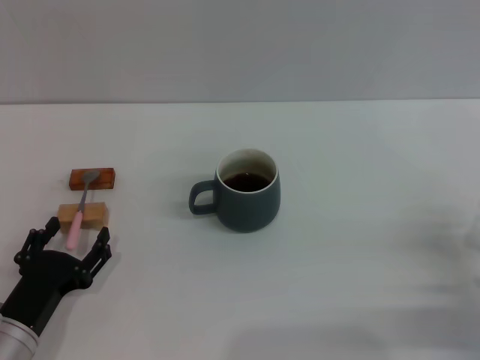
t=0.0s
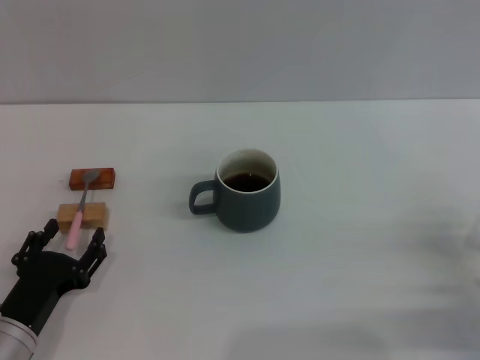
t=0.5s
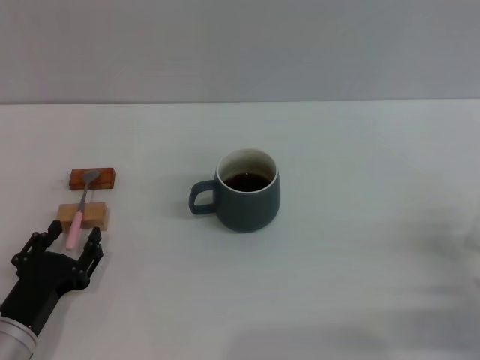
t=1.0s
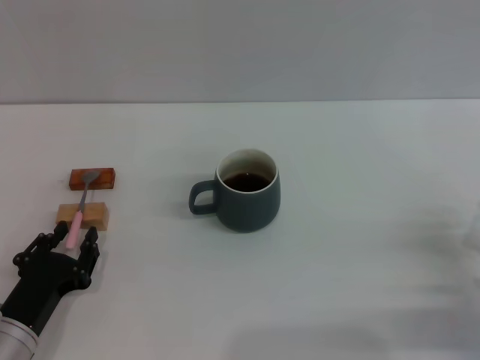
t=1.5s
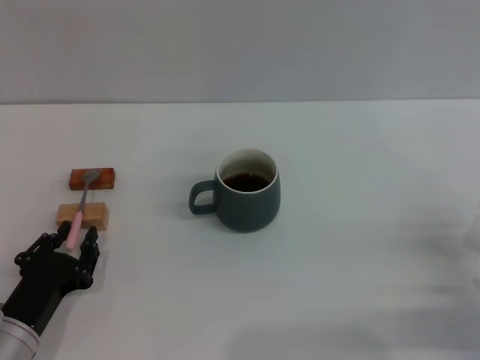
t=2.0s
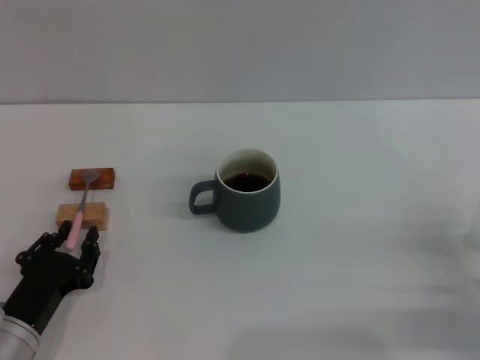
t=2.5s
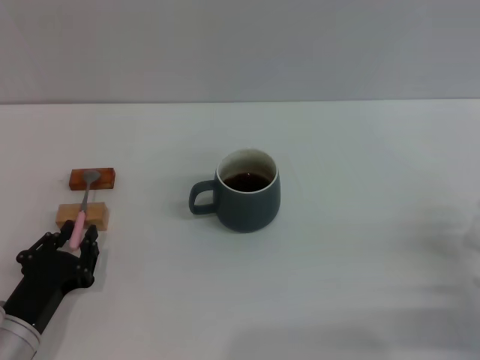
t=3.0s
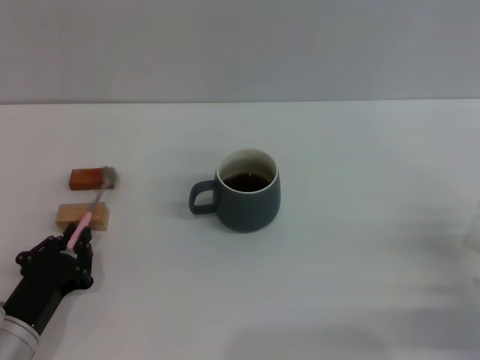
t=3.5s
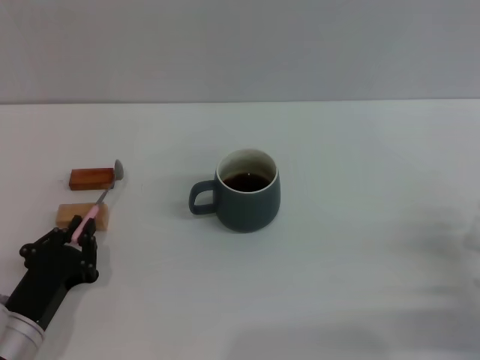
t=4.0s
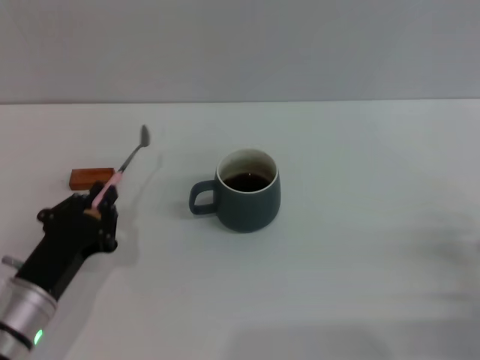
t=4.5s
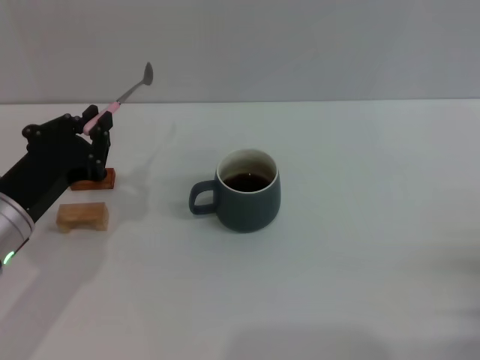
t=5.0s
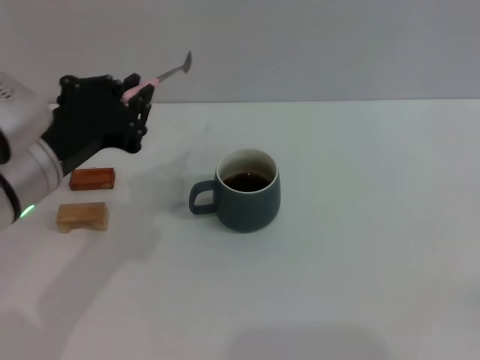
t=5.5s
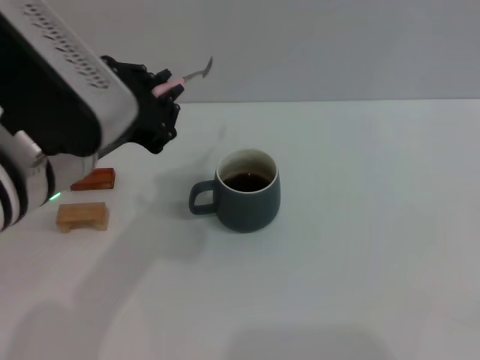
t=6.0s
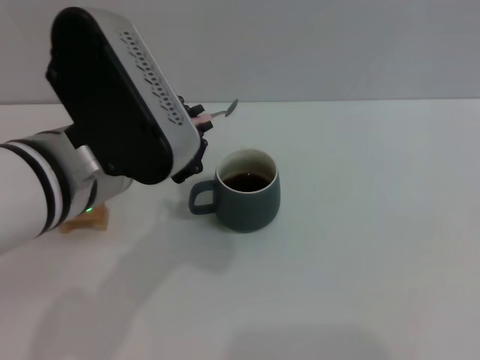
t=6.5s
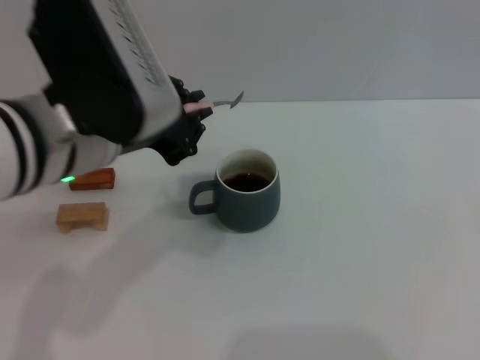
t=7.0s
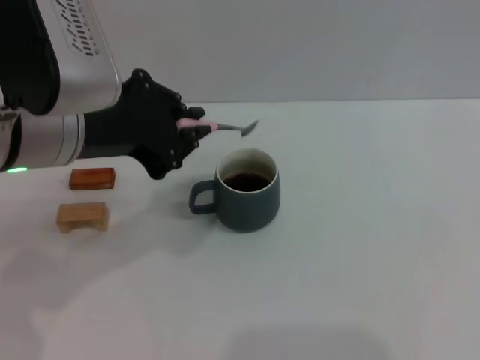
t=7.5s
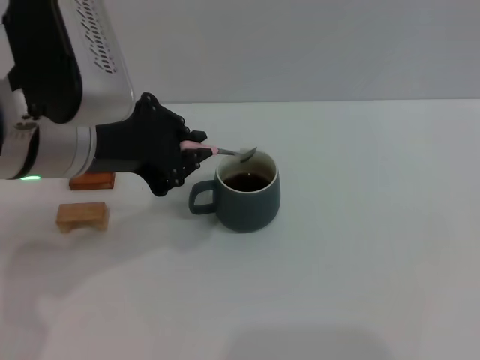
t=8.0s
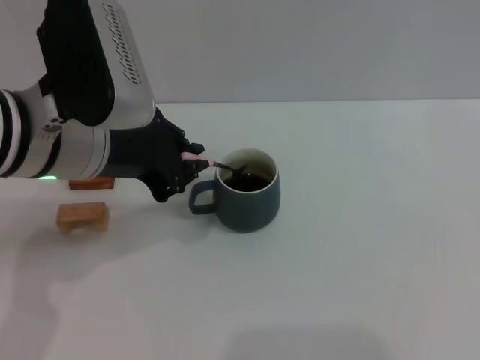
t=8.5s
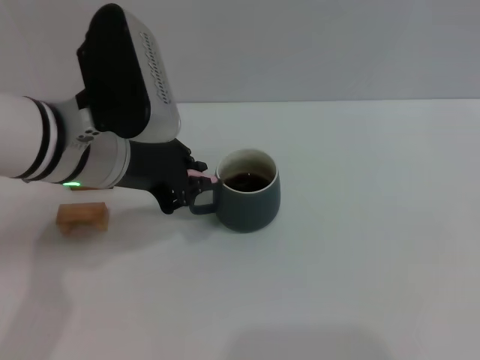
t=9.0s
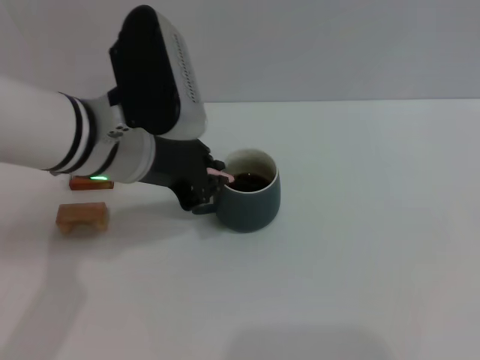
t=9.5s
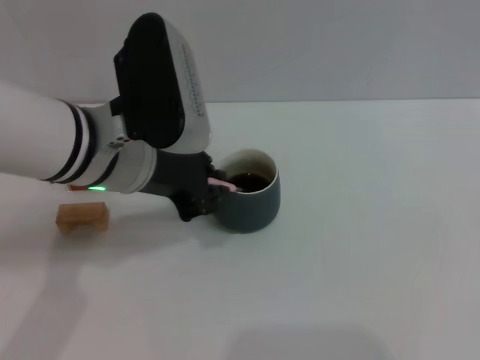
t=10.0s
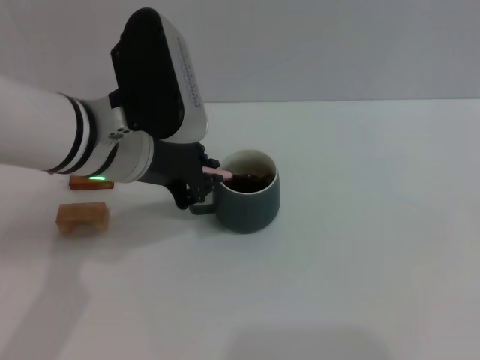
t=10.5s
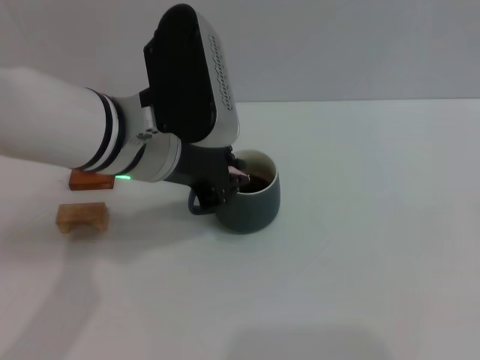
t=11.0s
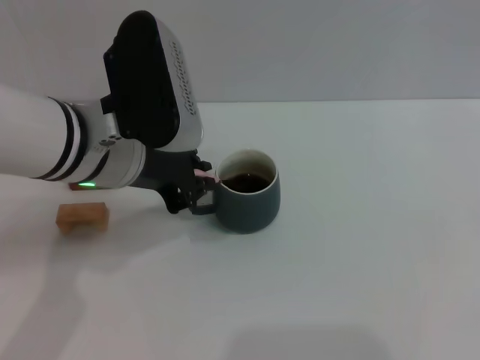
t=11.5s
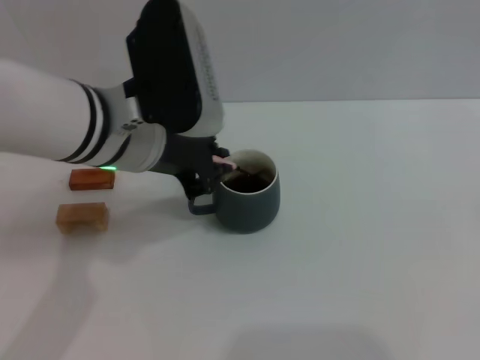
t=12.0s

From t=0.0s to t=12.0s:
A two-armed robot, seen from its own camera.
Task of the whole recording: Move the grey cup to the center, lift the pink spoon, stir it three times in the cup, and put the spoon into the cup.
Step, from t=0.0s to t=4.5s: Pick up the spoon with the left gripper.
From t=0.0s to t=2.0s: The left gripper closes up.
From t=2.0s to t=4.0s: The left gripper closes up.
From t=4.0s to t=6.0s: The right gripper is displaced backward and to the right by some 15 cm; the left gripper moves upward, approximately 25 cm.
From t=8.0s to t=10.0s: The left gripper changes place by approximately 5 cm.
From t=10.0s to t=12.0s: The grippers stay close to where they were, moving slightly.

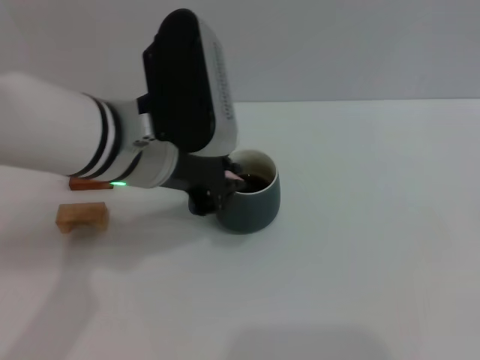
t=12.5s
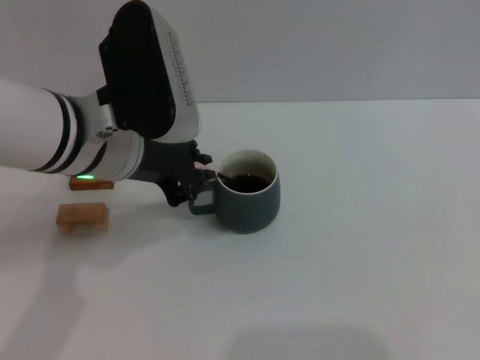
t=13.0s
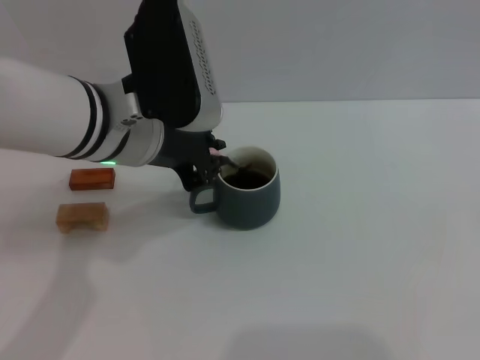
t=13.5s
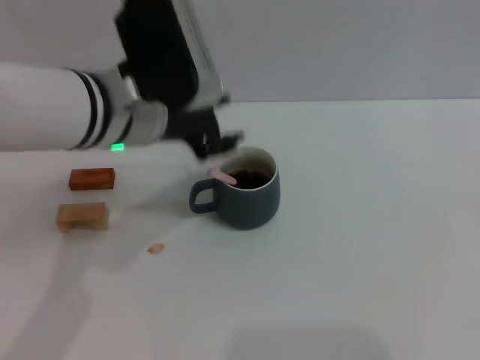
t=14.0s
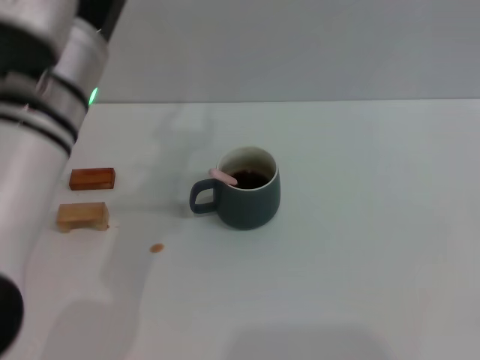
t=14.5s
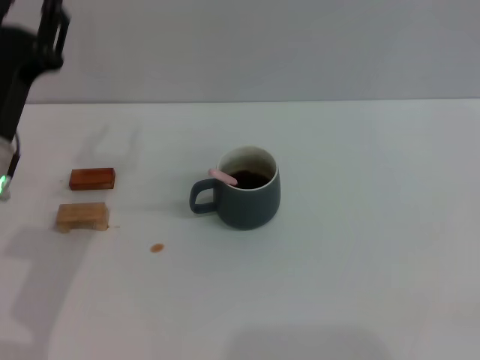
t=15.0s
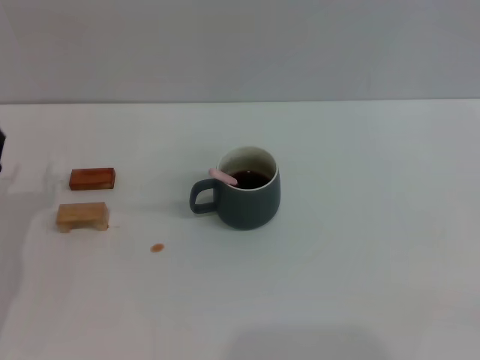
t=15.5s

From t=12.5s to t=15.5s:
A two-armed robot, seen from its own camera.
Task of the whole recording: Move the grey cup to the center, lift the pink spoon, stir it three times in the cup, and put the spoon into the cup.
From t=12.5s to t=14.0s: The left gripper opens up.
From t=14.0s to t=15.5s: The left gripper moves to the left, downward and backward, some 25 cm.
